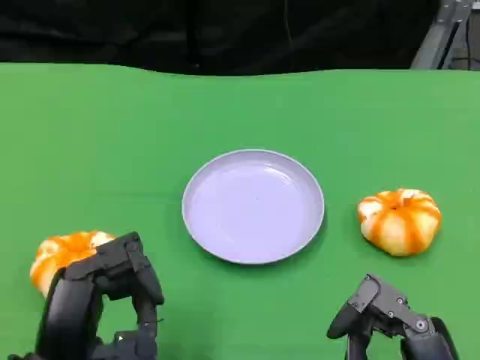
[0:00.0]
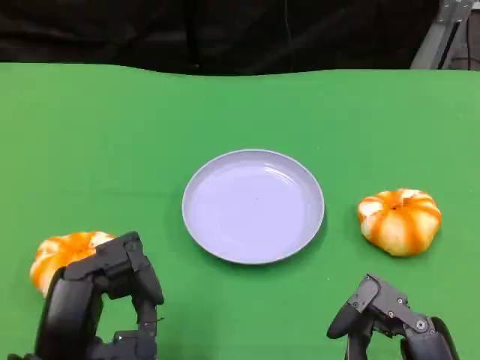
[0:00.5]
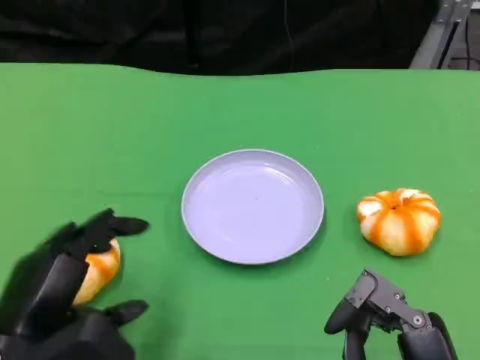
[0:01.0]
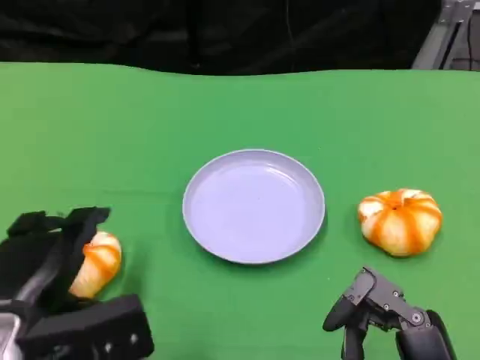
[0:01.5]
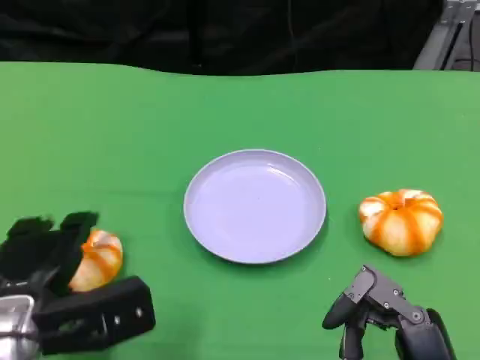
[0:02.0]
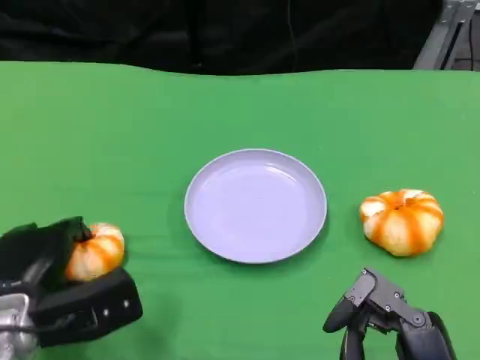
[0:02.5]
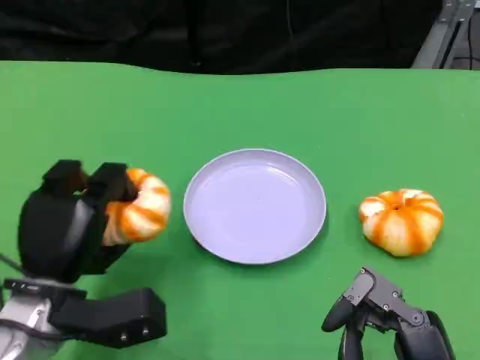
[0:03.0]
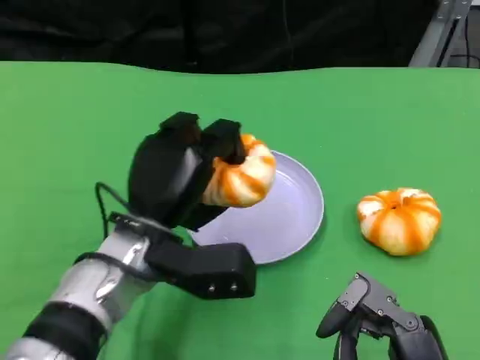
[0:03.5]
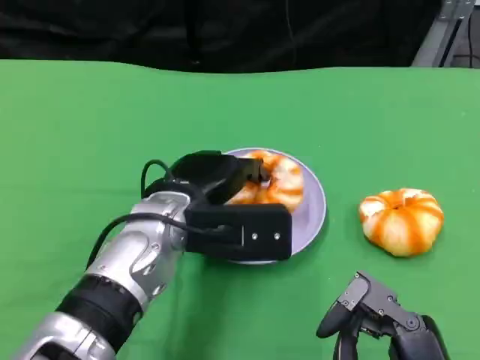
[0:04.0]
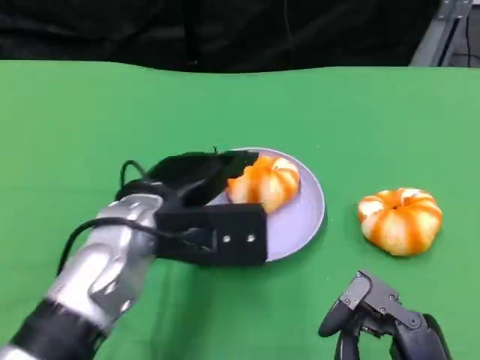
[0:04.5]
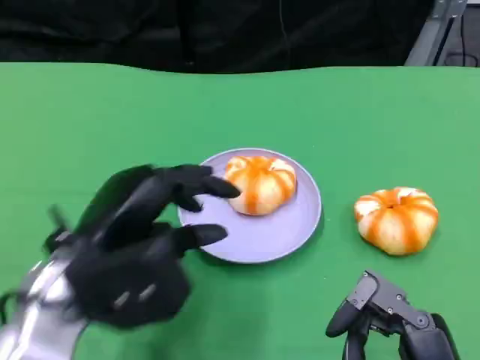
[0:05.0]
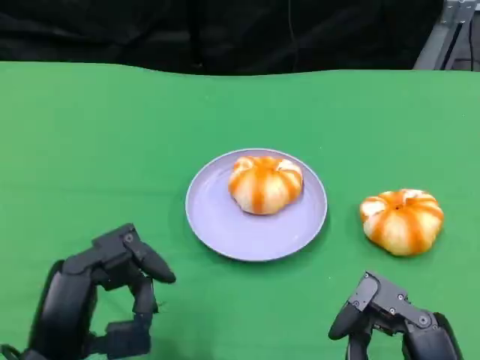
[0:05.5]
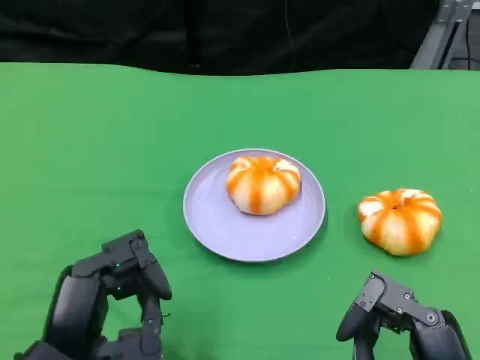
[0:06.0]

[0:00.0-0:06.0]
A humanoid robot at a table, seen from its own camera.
Task of the whole recording: Grasp the bread from the table and place it into the plate.
0:00.0 to 0:02.0: The left hand is displaced forward by about 10 cm.
0:02.0 to 0:04.0: The left hand travels to the right and forward by about 15 cm.
0:04.0 to 0:06.0: The left hand heads backward and to the left, covering about 20 cm.

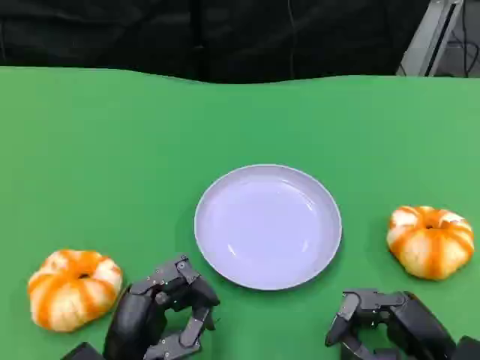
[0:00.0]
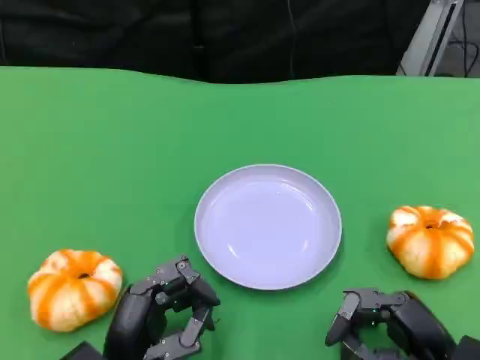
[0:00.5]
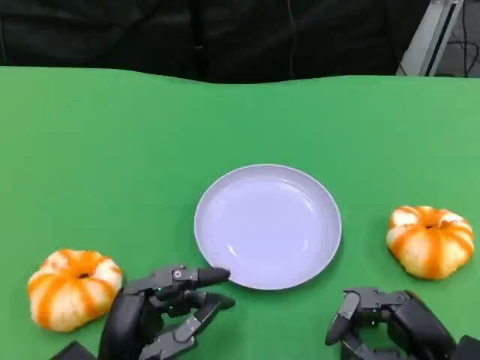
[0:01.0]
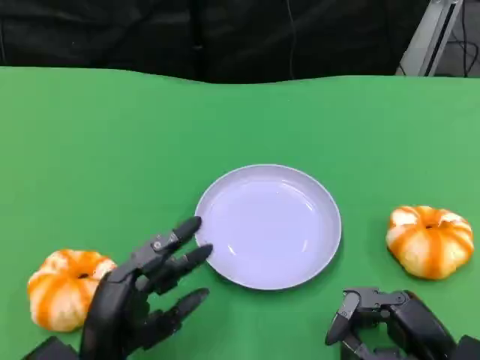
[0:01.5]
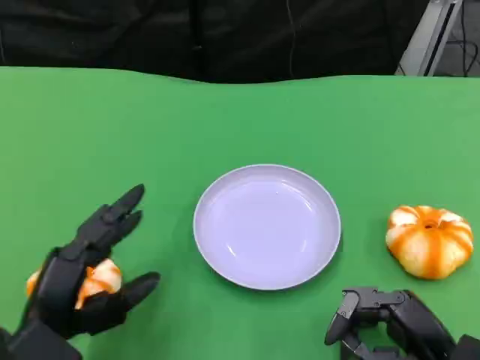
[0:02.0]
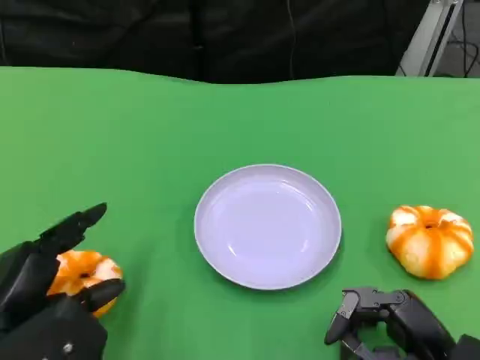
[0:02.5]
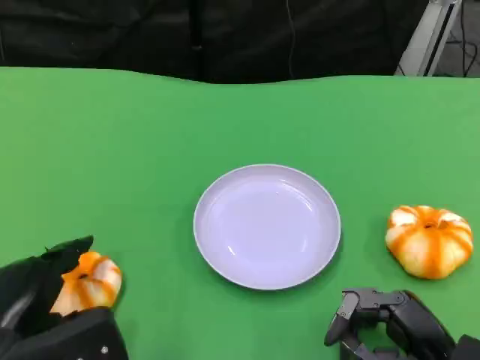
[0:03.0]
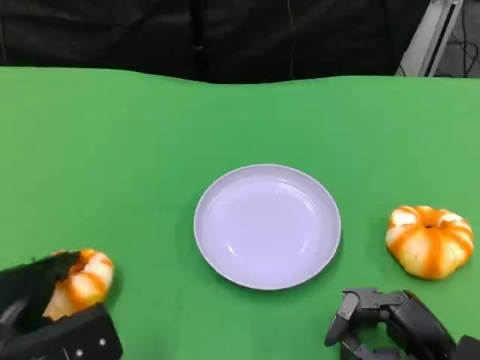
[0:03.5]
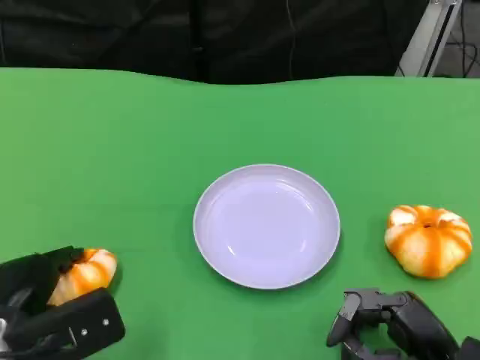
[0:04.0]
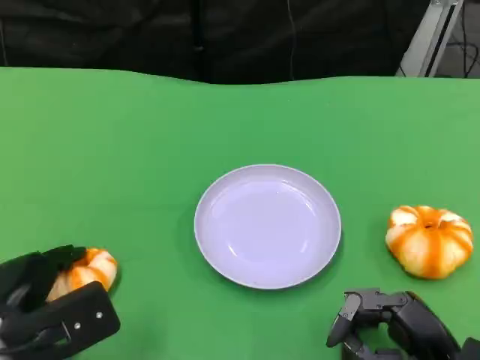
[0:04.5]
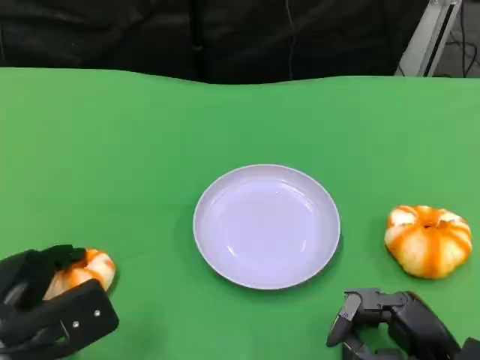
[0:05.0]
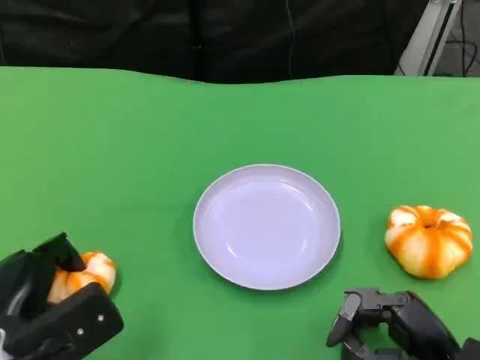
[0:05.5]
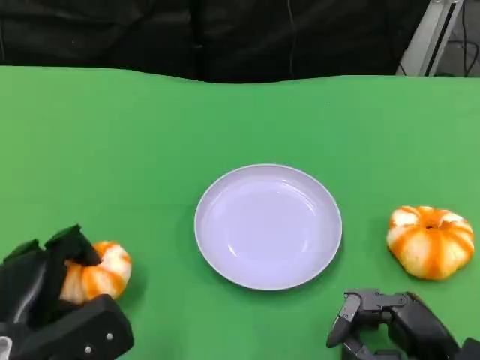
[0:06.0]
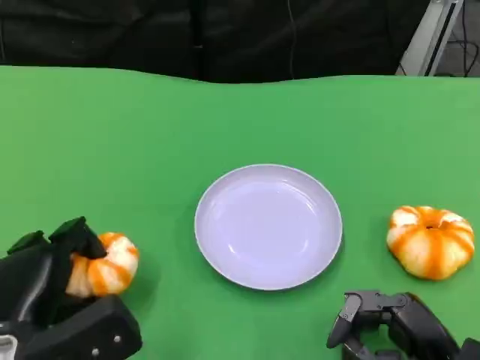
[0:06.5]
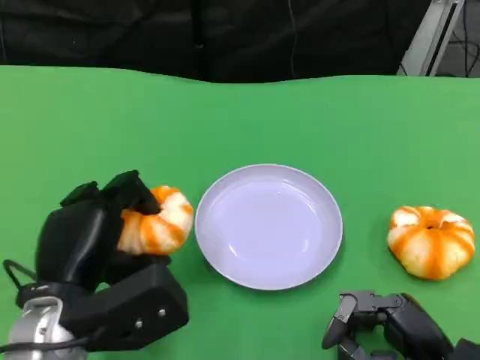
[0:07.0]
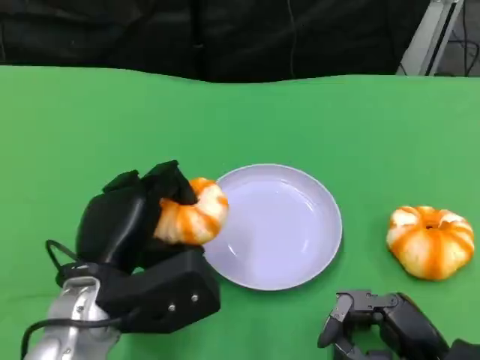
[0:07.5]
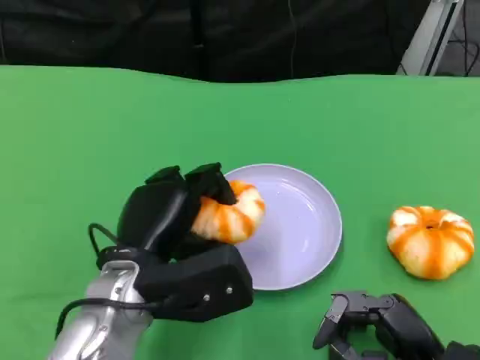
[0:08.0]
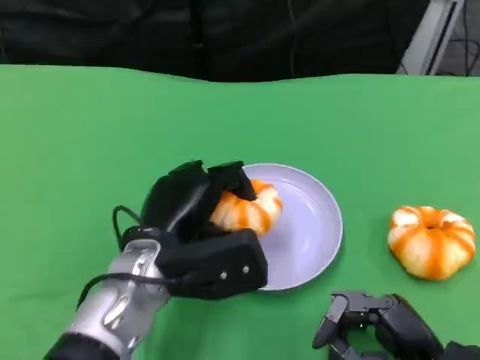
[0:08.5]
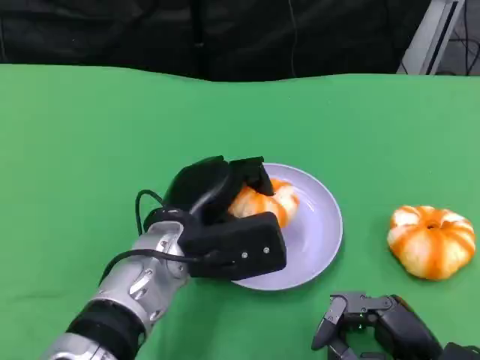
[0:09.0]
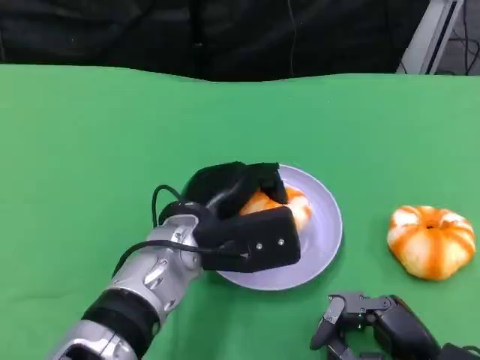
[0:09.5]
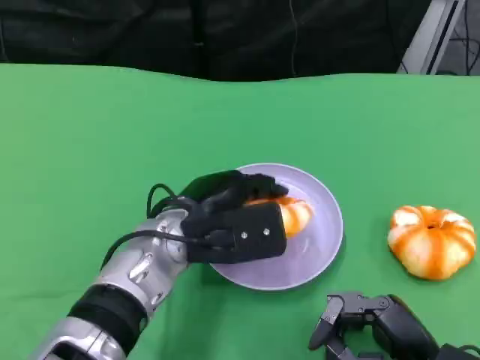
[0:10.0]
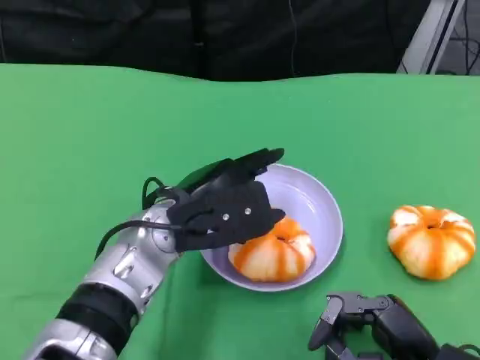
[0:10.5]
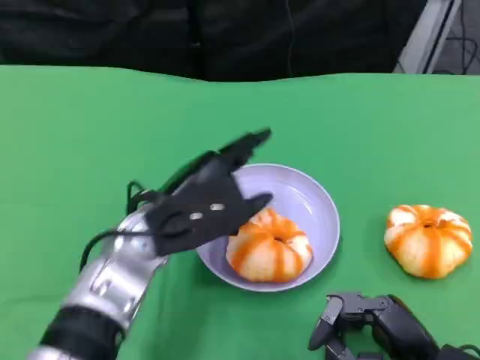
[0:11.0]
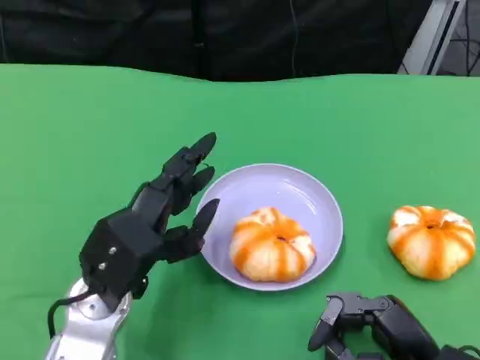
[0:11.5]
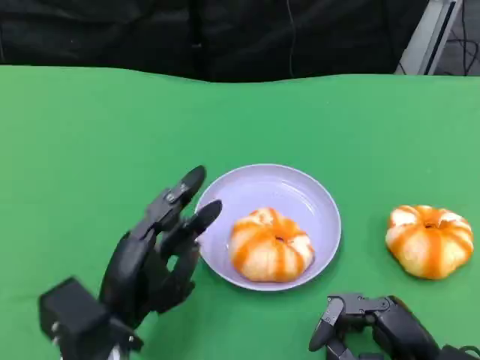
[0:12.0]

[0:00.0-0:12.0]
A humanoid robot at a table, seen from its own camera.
Task of the whole recording: Grasp the bread from the table and place it into the plate.
0:00.0 to 0:02.0: The left hand shifts some 10 cm to the left and upward.
0:06.0 to 0:08.0: The left hand goes approximately 10 cm to the right and forward.
0:08.0 to 0:10.0: The left hand changes place by roughly 5 cm.
0:10.0 to 0:12.0: The left hand goes roughly 15 cm backward, to the left and downward.

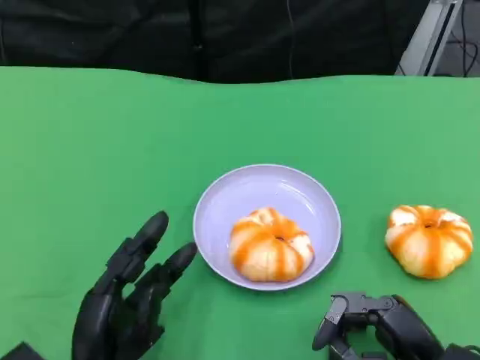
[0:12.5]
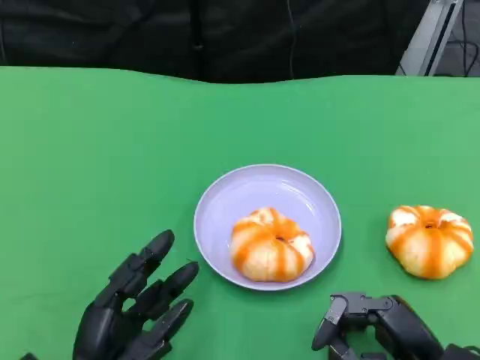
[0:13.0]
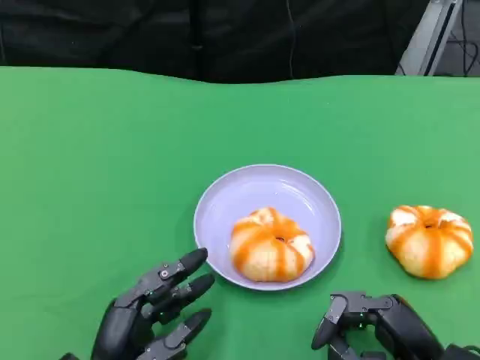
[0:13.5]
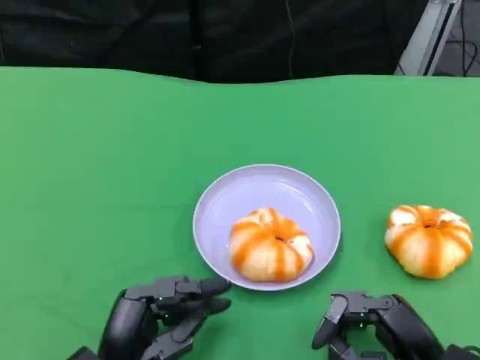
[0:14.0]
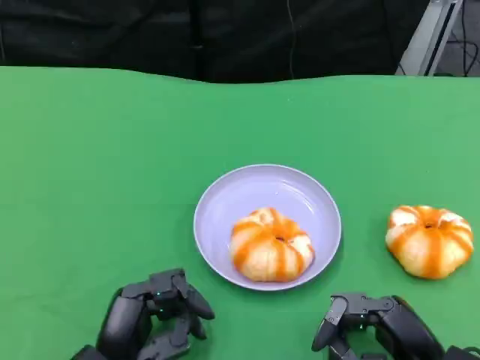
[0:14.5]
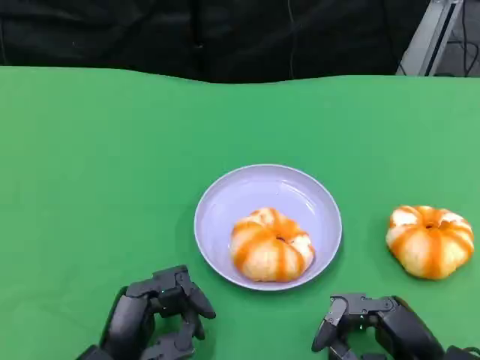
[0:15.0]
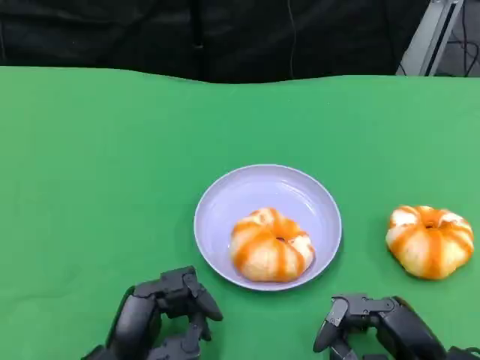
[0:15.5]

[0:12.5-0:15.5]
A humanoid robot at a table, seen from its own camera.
Task of the whole recording: Grasp the bread from the table and place it into the plate.
0:12.5 to 0:14.0: The hands stay close to where they were, moving slightly.
0:14.0 to 0:15.5: Both hands stay about where they are.

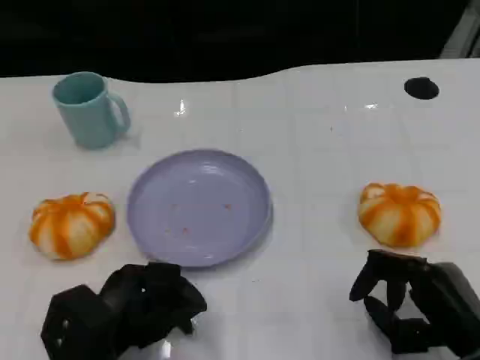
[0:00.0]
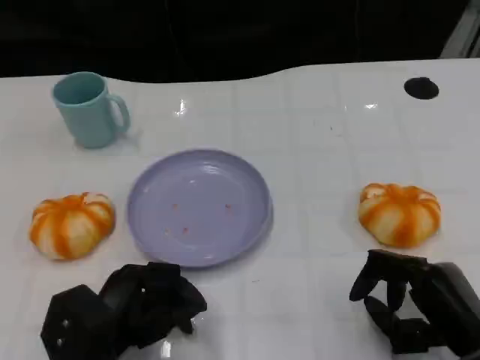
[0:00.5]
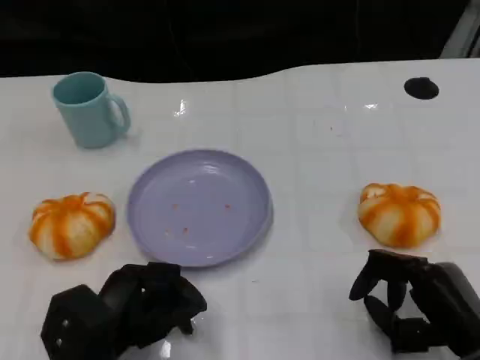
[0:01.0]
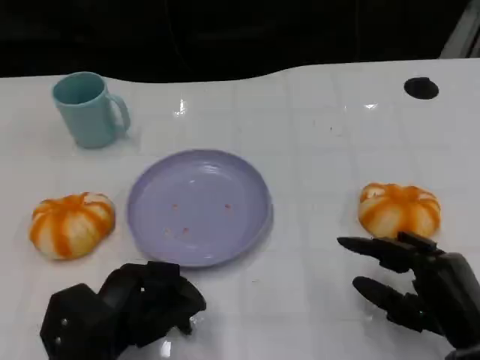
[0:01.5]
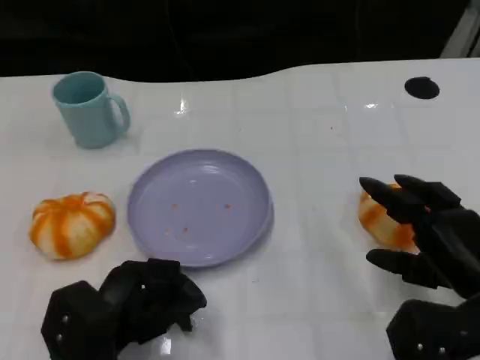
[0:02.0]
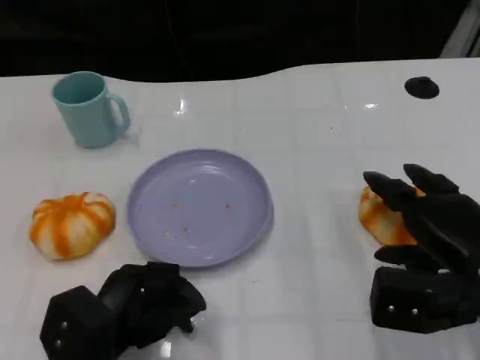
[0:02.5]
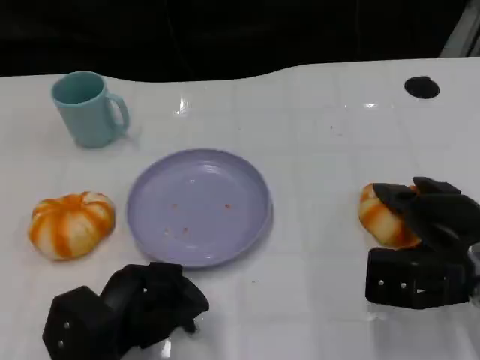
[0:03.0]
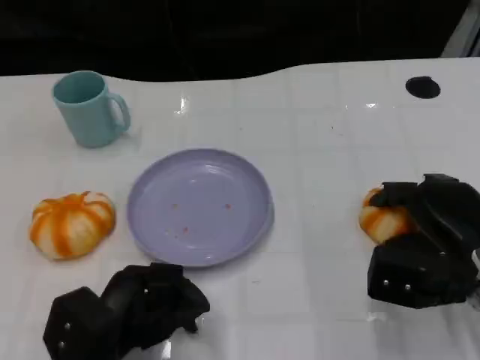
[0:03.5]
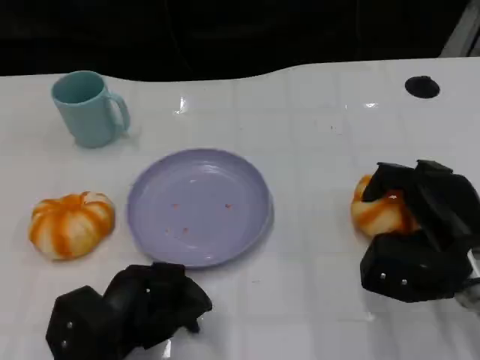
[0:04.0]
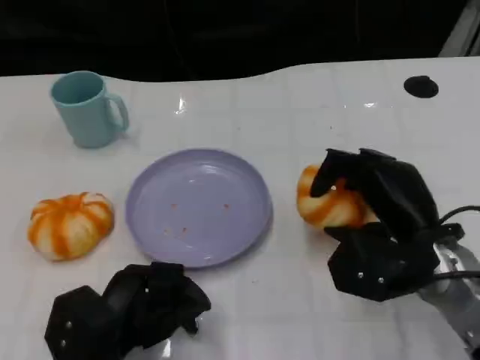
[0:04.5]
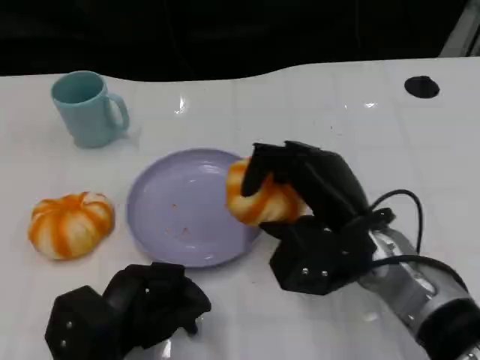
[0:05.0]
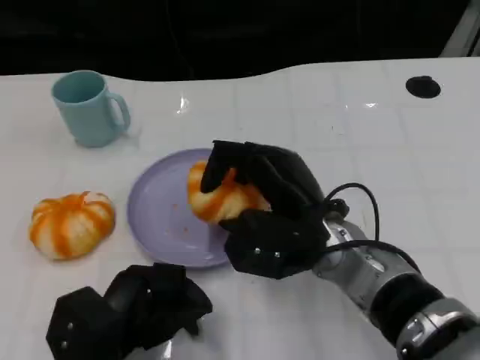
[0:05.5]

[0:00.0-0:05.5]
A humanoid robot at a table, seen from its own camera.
Task of the whole recording: Grasp the bread from the table and place it into the plate.
0:00.0 to 0:02.0: The right hand changes place by some 5 cm.
0:03.5 to 0:05.5: The right hand moves to the left, approximately 15 cm.
